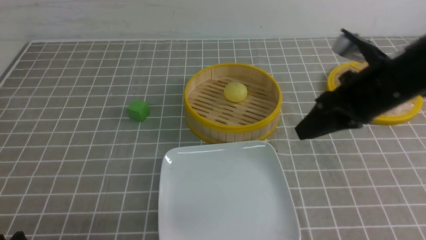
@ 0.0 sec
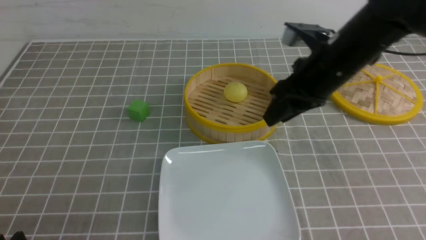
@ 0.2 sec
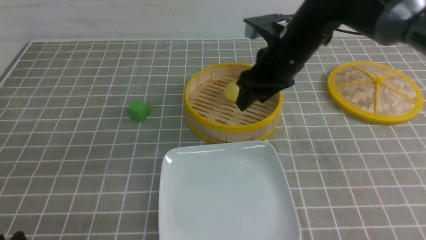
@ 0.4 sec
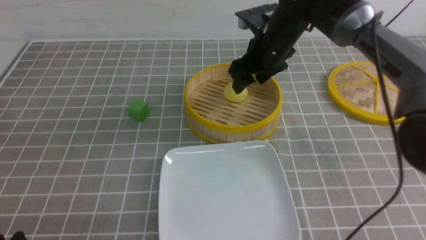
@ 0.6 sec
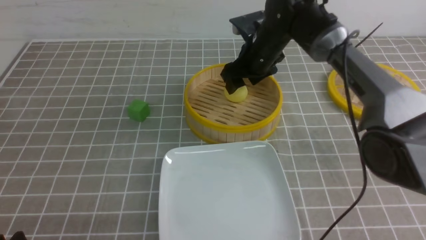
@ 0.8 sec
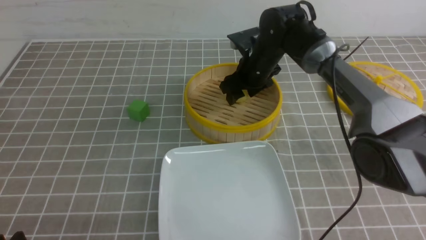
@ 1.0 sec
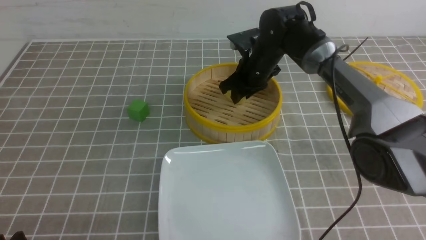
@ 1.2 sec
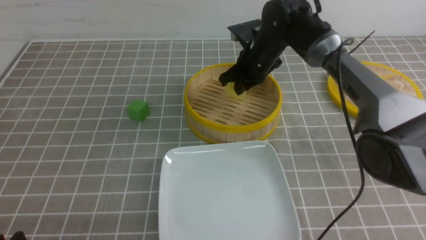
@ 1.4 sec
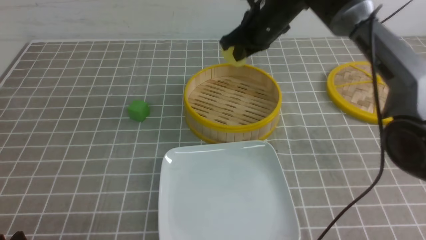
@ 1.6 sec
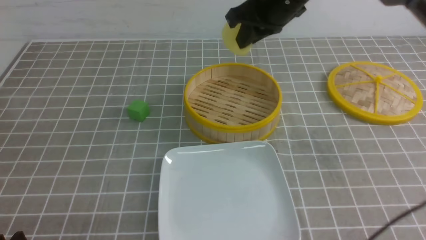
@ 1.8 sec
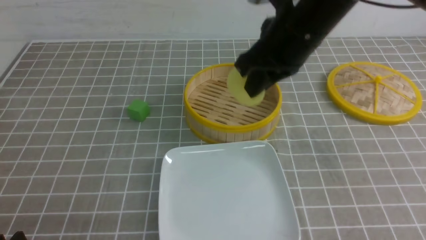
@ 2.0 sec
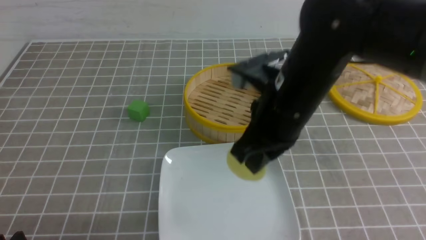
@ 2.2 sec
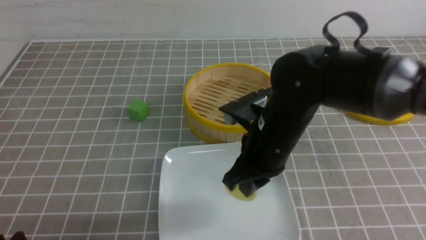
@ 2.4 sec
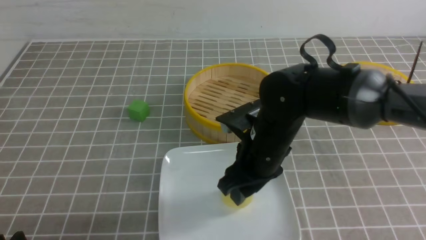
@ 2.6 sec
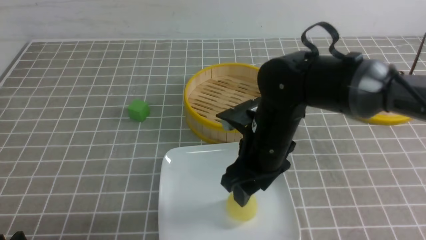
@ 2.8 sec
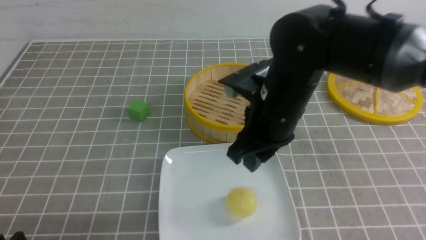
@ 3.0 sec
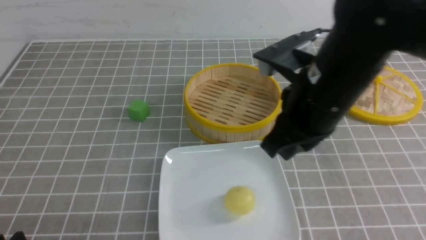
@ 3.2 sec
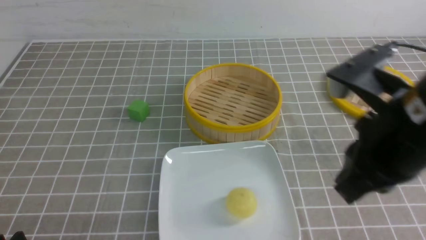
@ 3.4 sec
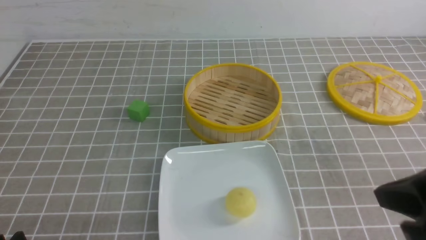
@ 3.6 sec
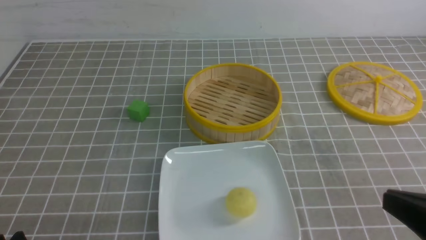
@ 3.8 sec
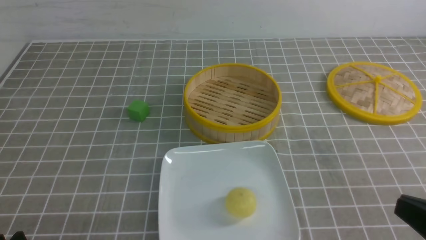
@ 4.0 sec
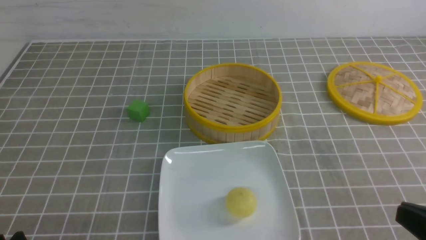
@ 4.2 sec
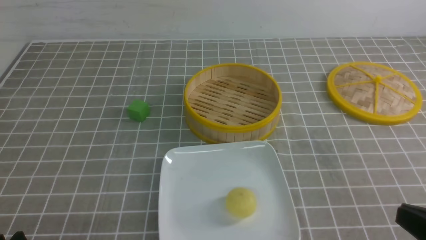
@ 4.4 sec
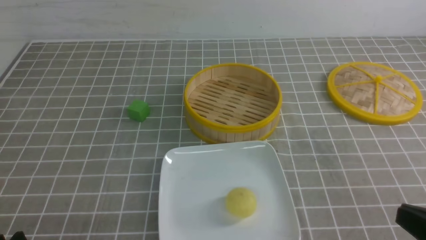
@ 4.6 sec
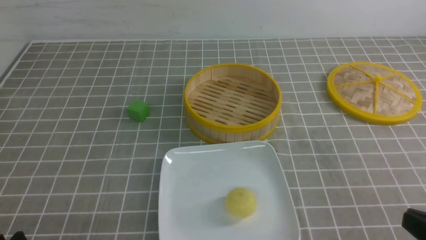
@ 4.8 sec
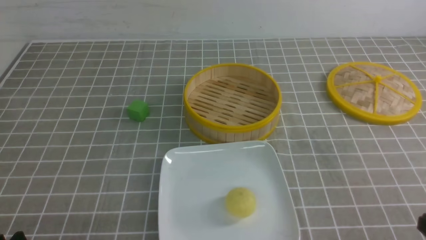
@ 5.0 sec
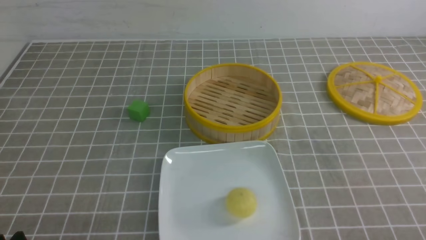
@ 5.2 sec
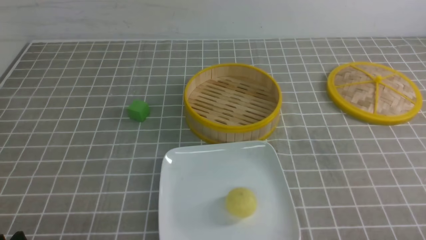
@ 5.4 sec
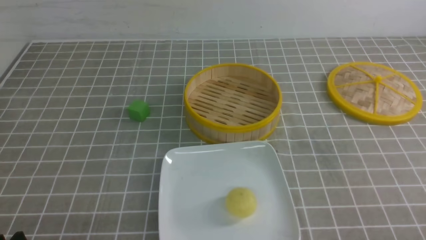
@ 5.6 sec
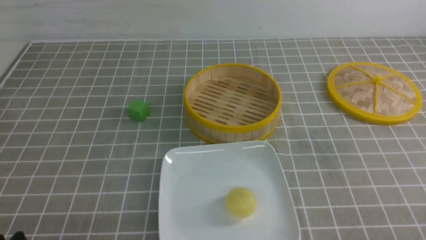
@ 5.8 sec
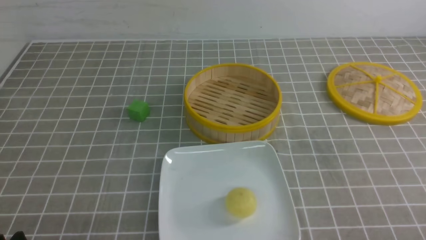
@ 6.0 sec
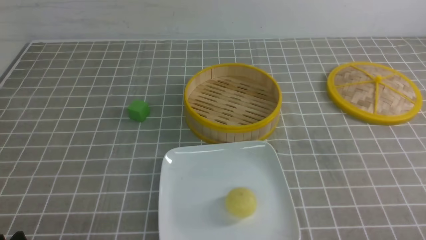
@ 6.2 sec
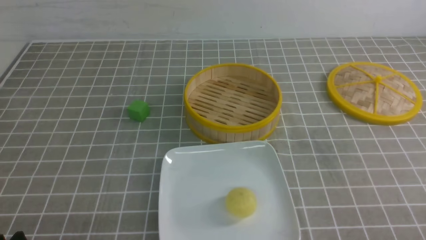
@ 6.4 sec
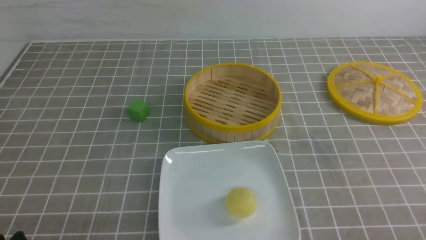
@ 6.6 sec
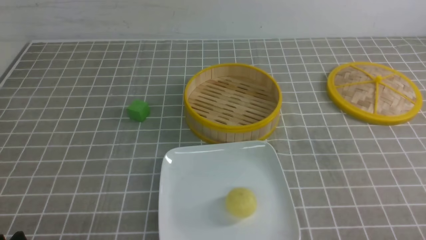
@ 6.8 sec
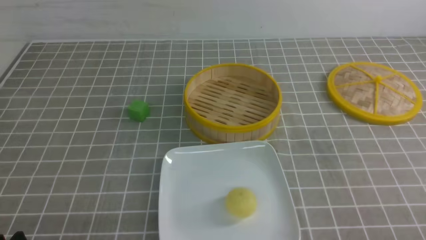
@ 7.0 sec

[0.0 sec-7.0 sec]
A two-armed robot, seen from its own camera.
Step, 1.6 sec to 2.8 sec: use the right arm to put the steamed stuffed bun into the plate.
0.0 sec to 1.4 sec: The right gripper goes about 20 cm forward and to the left, and opens, then closes once more.
1.4 sec to 2.8 sec: The right gripper moves backward, about 20 cm, and opens up.
2.8 sec to 4.2 sec: The right gripper goes roughly 30 cm backward and to the right, and closes.
4.2 sec to 5.6 sec: The right gripper is displaced downward and to the right by approximately 10 cm.
5.6 sec to 7.0 sec: Both grippers stay about where they are.
